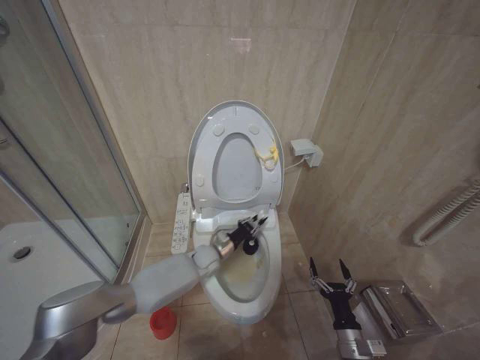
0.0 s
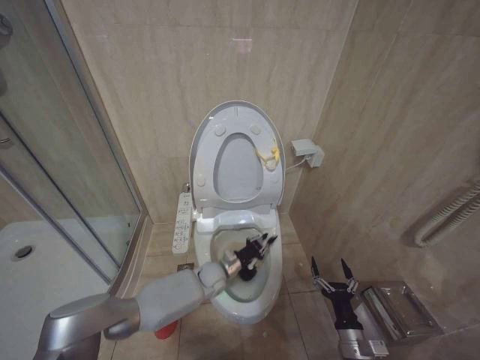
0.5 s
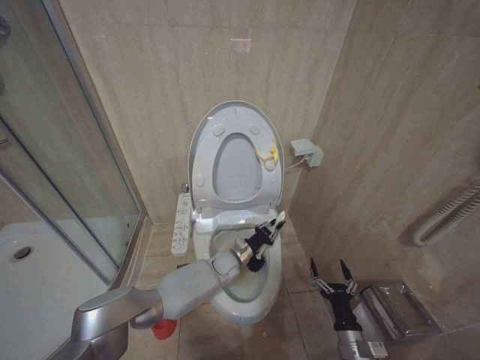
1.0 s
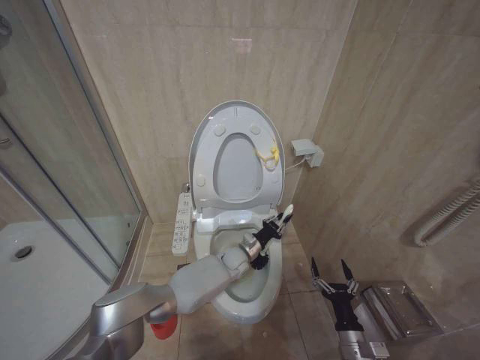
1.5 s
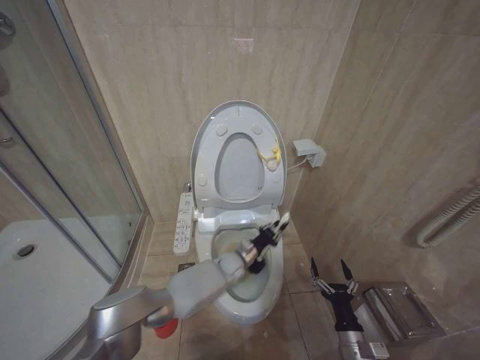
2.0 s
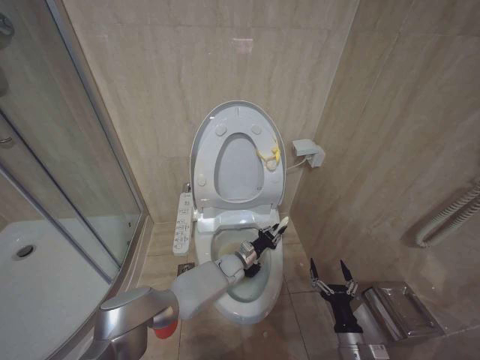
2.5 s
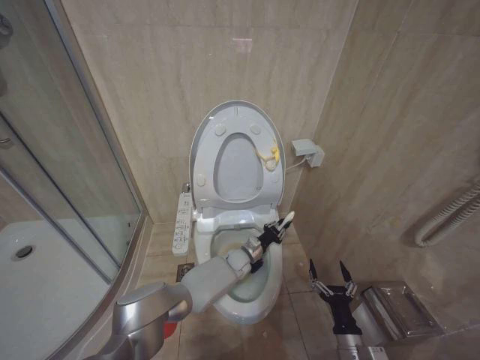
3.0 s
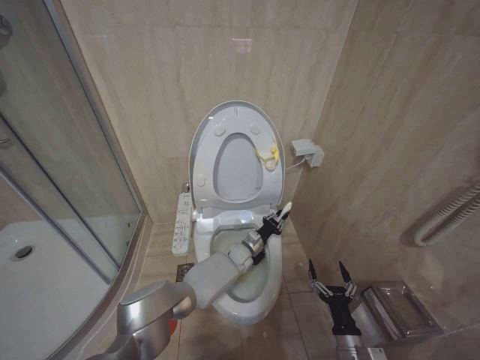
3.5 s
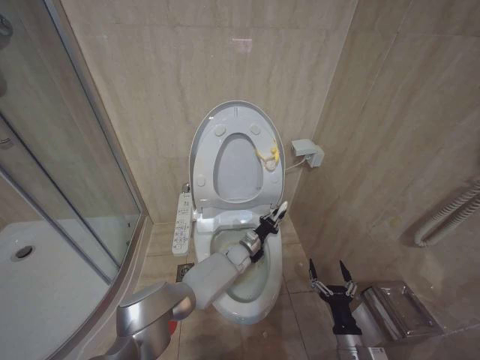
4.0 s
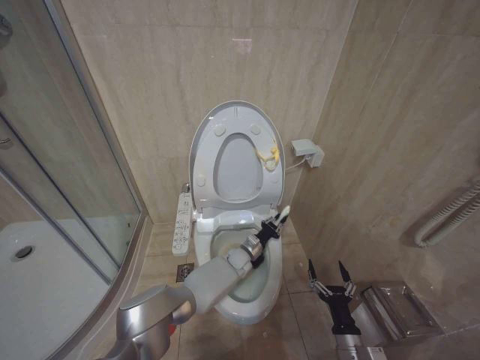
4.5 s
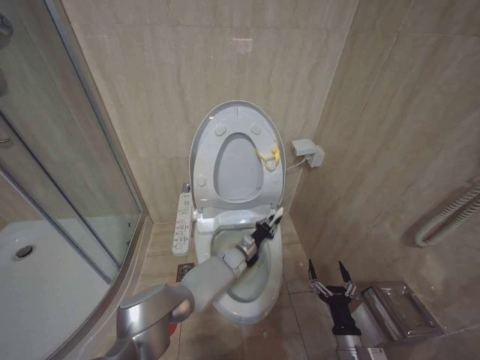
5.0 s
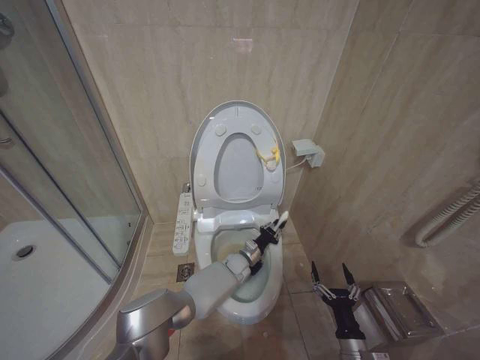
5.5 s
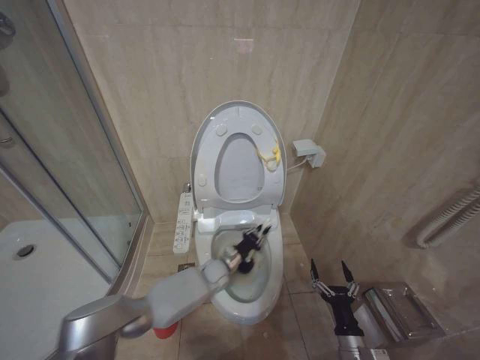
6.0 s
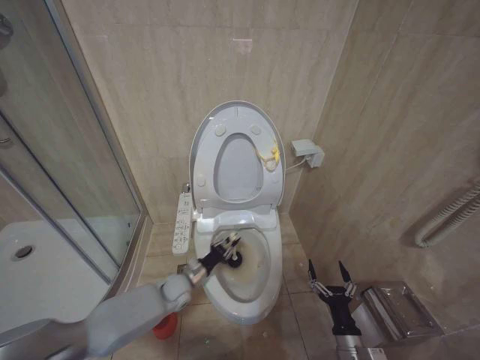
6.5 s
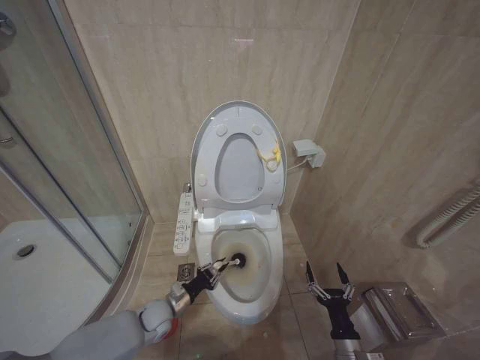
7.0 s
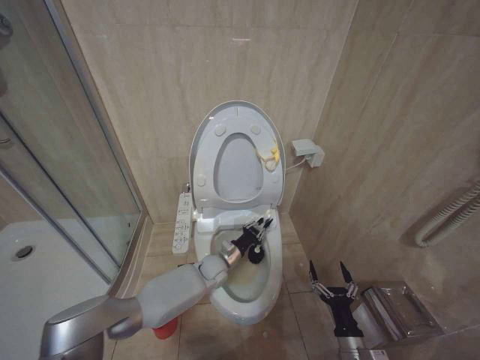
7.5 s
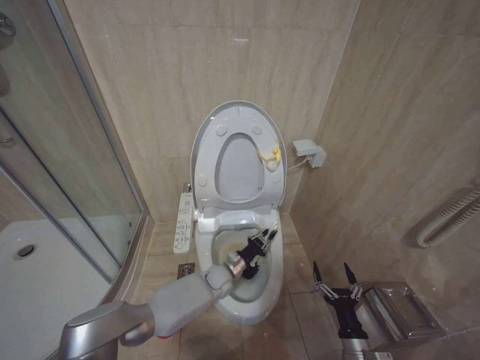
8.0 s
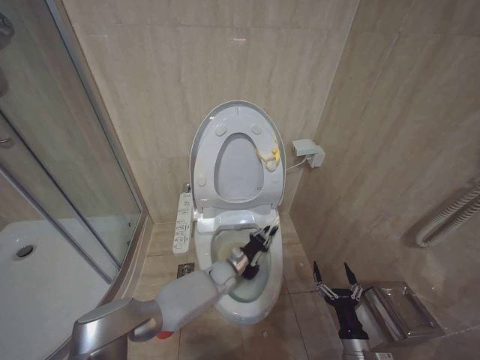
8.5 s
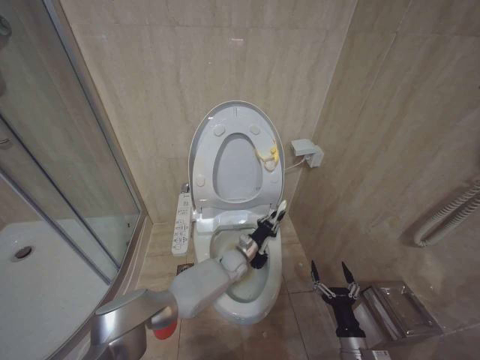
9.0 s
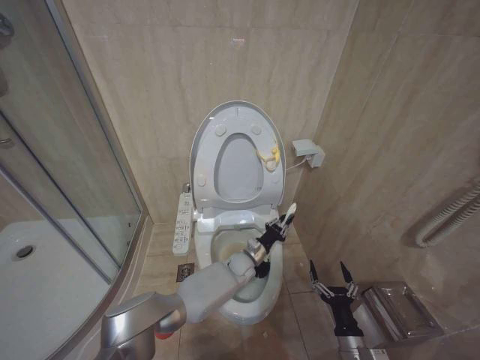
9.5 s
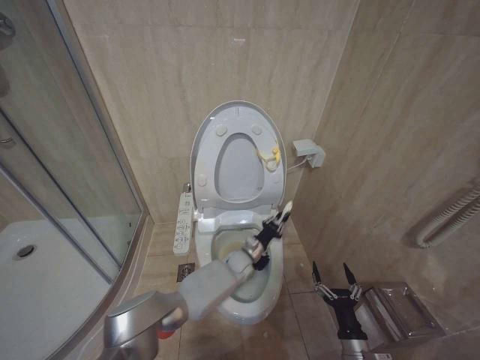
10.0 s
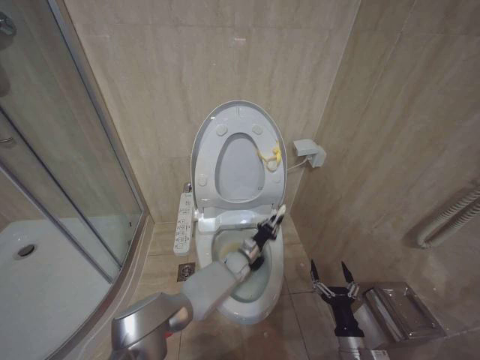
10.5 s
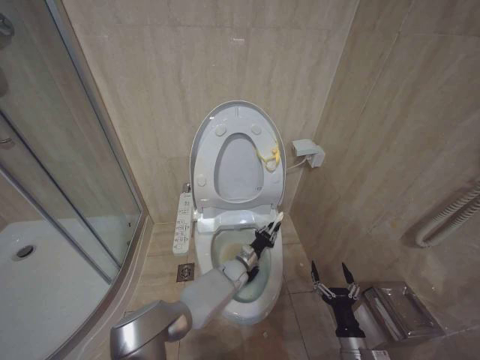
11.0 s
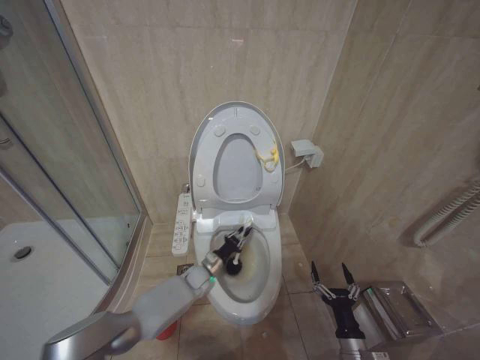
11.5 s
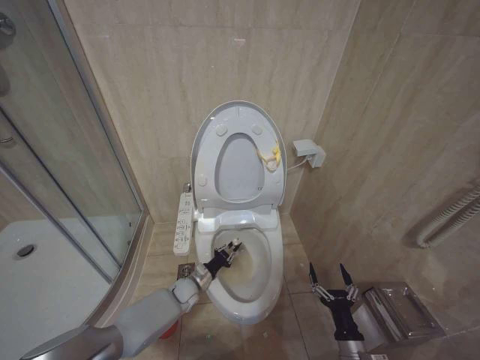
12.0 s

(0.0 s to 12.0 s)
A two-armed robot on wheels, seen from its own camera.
Task of the whole recording: Open the toilet lid, clean the toilet bowl with a toilet brush, close the toilet lid, and flush.
0.0 s - 2.0 s: The left gripper goes about 10 cm to the right.
2.0 s - 4.0 s: The left gripper ends up approximately 5 cm from where it was.
4.0 s - 6.0 s: The left gripper moves to the left, about 5 cm.
6.0 s - 8.0 s: The left gripper reaches roughly 20 cm to the left, then returns.
8.0 s - 10.0 s: The left gripper moves to the right, roughly 5 cm.
10.0 s - 12.0 s: The left gripper travels to the left by about 20 cm.

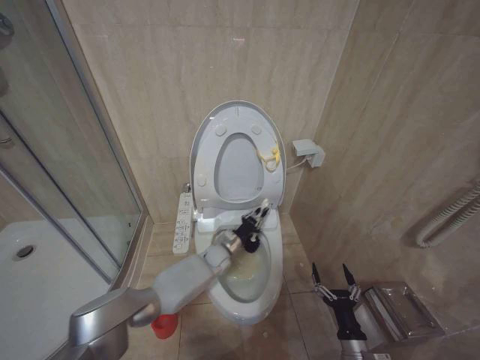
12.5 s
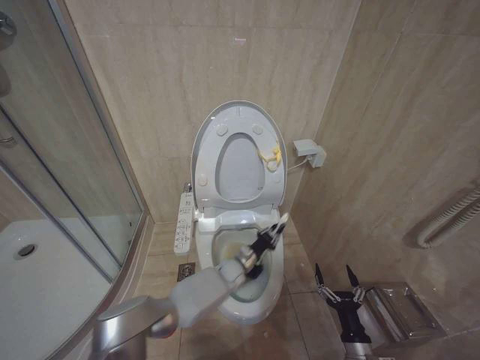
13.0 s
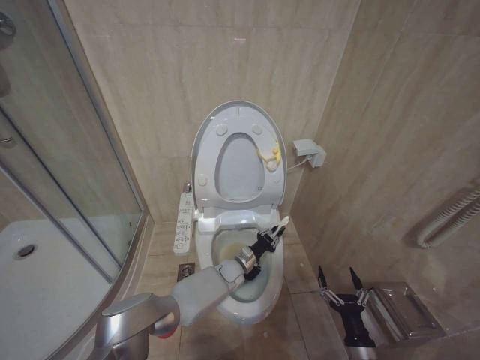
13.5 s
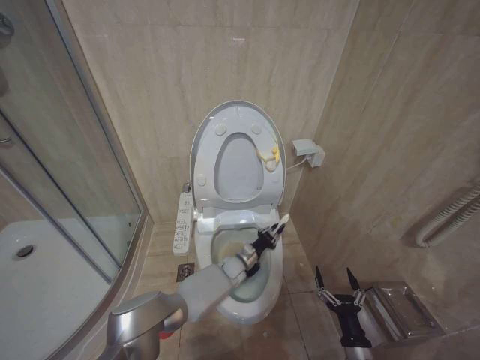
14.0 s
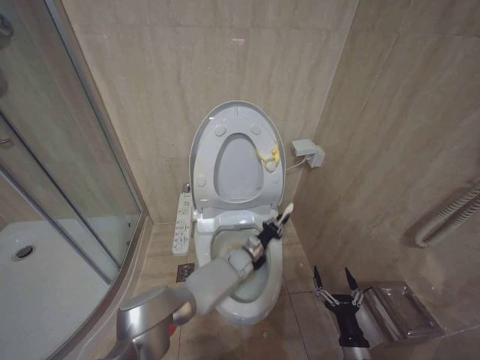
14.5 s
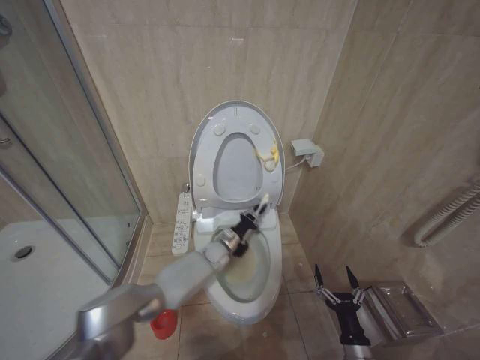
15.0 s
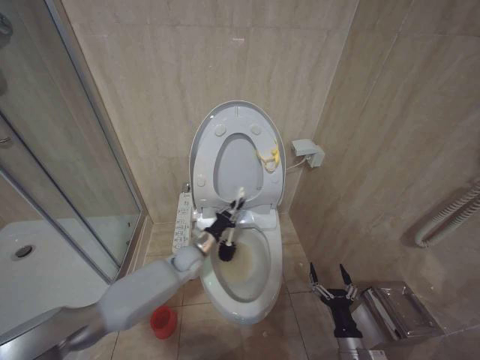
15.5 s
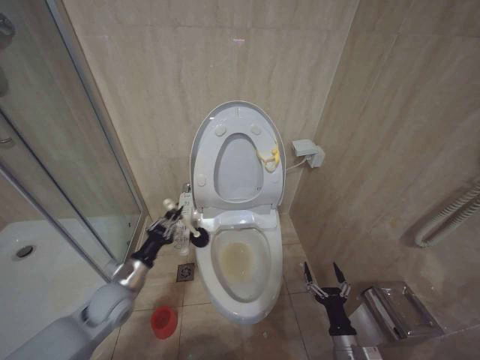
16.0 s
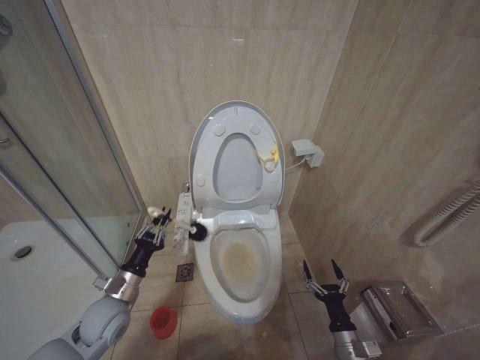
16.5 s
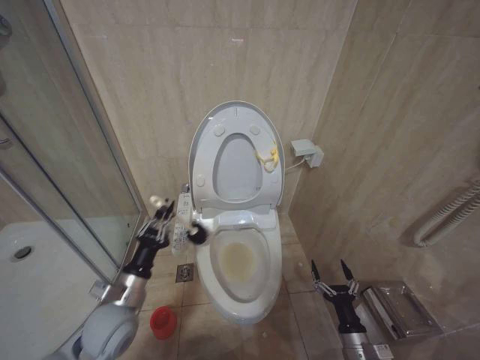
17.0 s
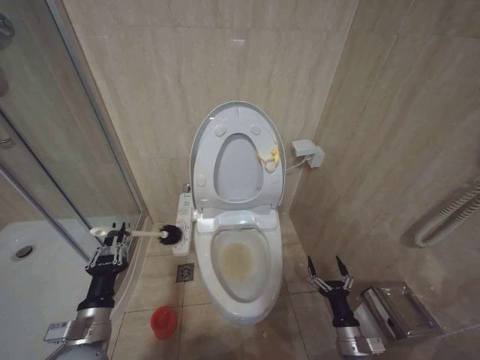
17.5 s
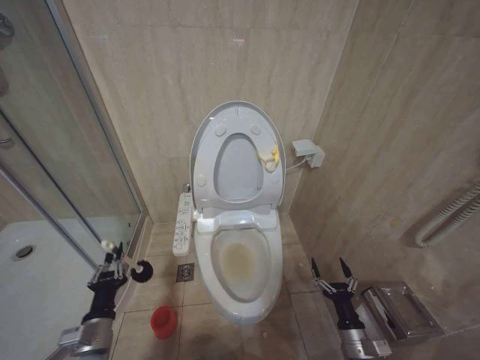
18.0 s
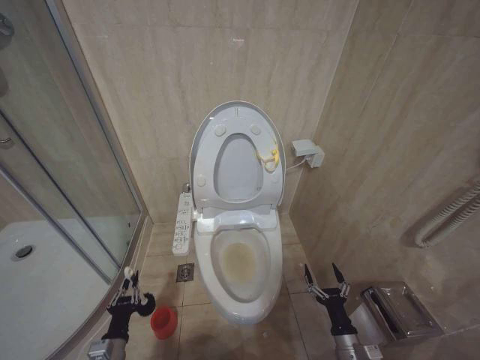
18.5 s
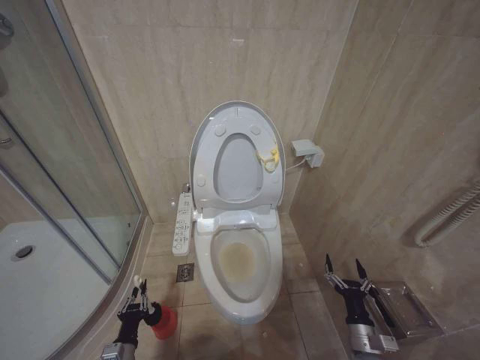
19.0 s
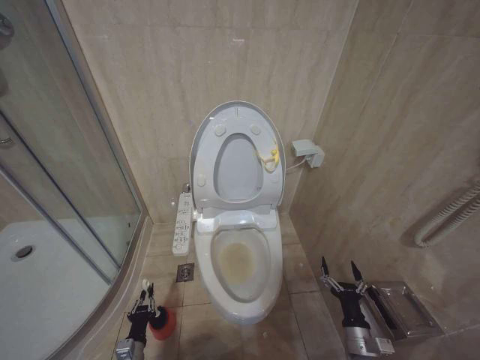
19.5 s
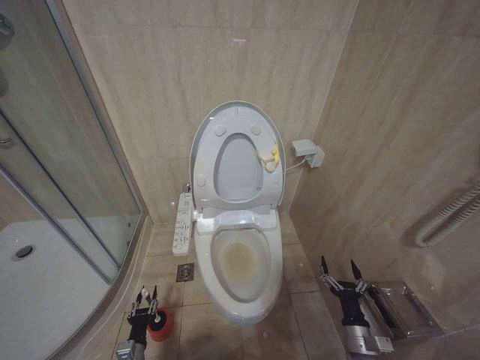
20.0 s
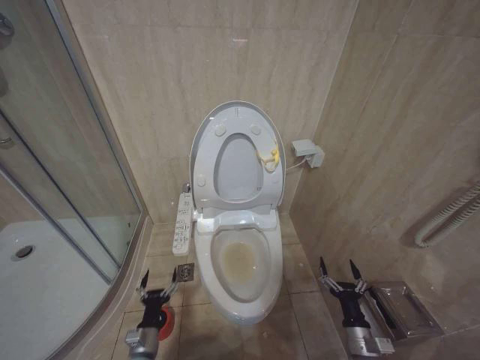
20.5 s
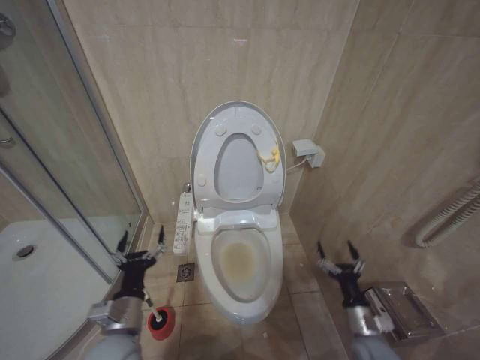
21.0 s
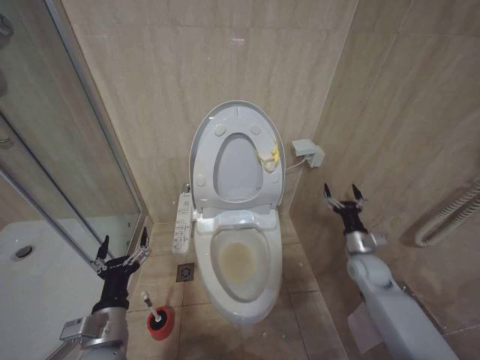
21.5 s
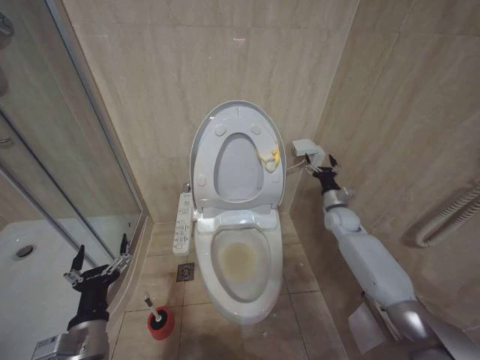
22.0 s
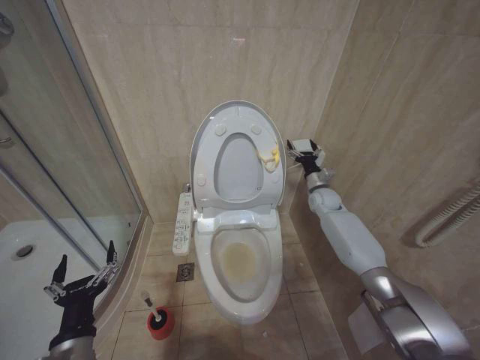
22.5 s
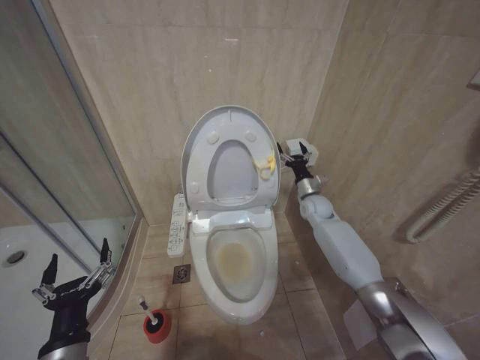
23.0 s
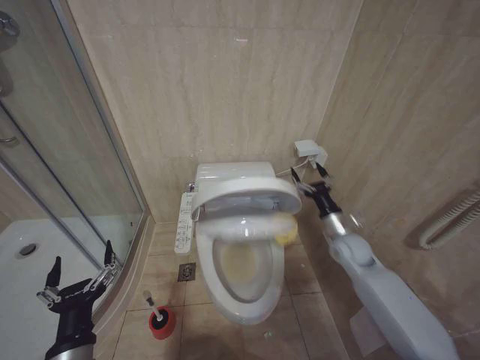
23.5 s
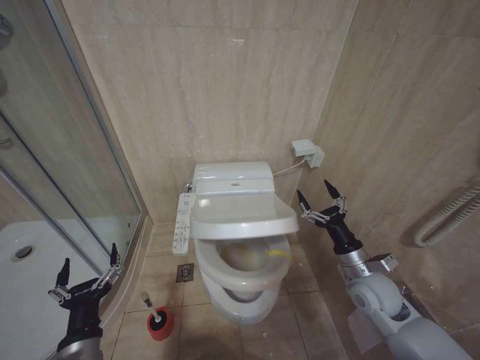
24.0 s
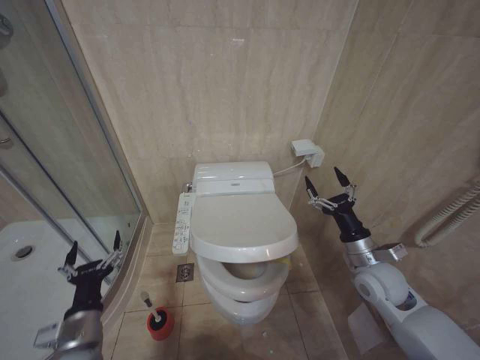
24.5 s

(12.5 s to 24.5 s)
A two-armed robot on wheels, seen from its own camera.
Task of the whole recording: Open the toilet lid, clean the toilet bowl with a toilet brush, close the toilet lid, and flush.
12.5 s - 14.5 s: The left gripper travels to the right by some 10 cm.
14.5 s - 16.5 s: The left gripper moves to the left and backward, approximately 40 cm.
16.5 s - 18.5 s: The left gripper shifts some 15 cm downward and backward.
18.5 s - 20.5 s: The left gripper travels downward by roughly 10 cm, and opens up.
20.5 s - 22.5 s: The right gripper is displaced forward and upward by roughly 50 cm, while the left gripper goes about 25 cm upward.
22.5 s - 24.5 s: The right gripper moves backward, approximately 25 cm.

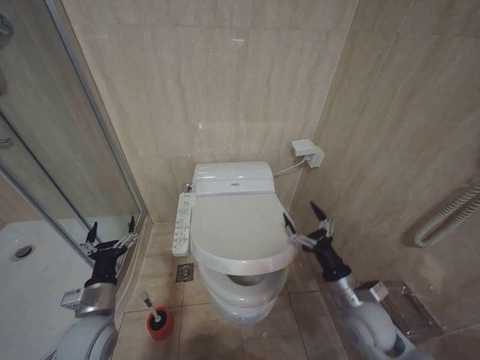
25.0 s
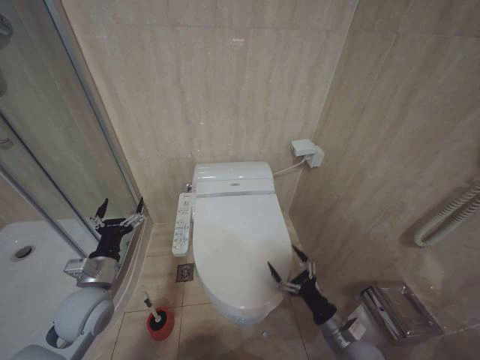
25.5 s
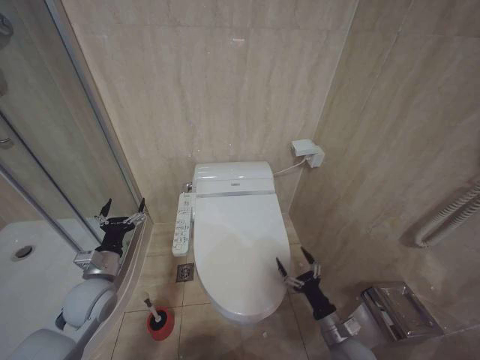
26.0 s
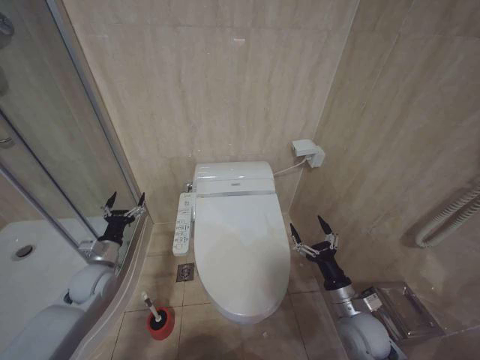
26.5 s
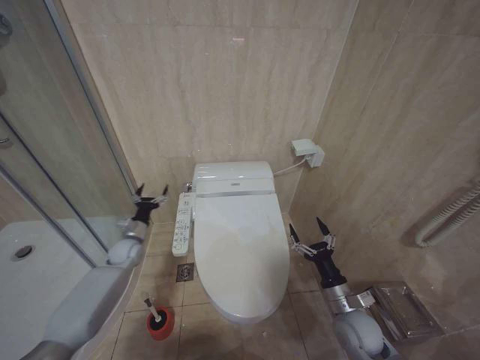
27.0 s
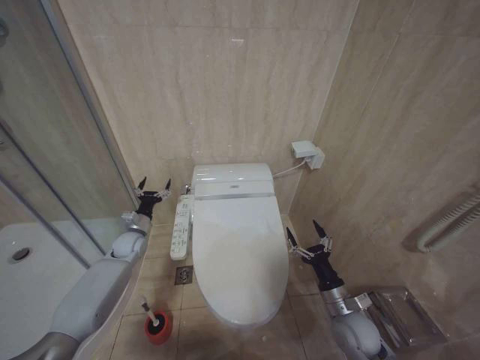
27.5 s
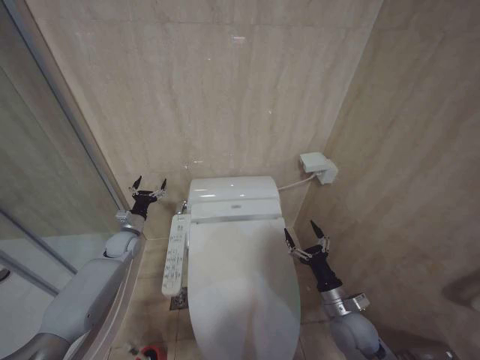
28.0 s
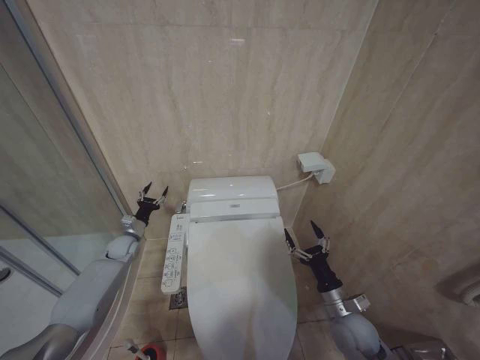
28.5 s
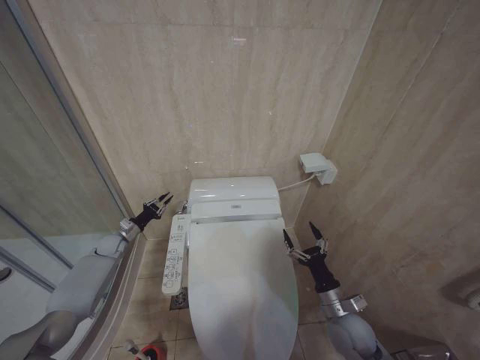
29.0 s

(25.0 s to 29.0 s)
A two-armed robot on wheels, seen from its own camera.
Task of the whole recording: Open the toilet lid, clean the toilet bowl with a toilet brush, close the toilet lid, and flush.
25.0 s - 27.0 s: The right gripper is displaced downward by approximately 5 cm. Meanwhile the left gripper shifts approximately 25 cm forward.
27.0 s - 29.0 s: The left gripper is displaced to the left by roughly 5 cm, and closes up.
